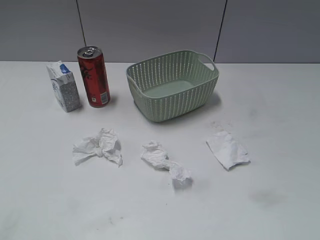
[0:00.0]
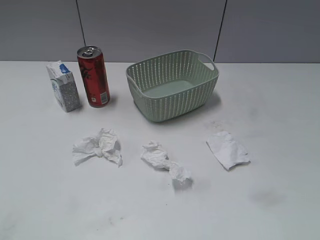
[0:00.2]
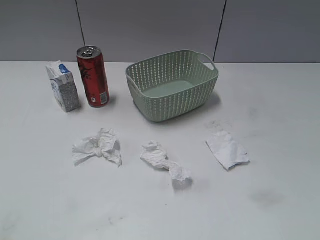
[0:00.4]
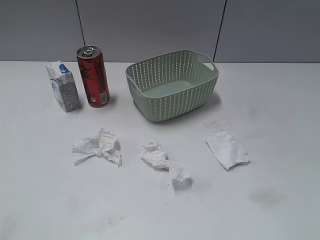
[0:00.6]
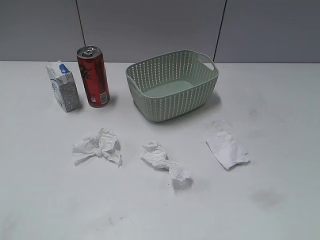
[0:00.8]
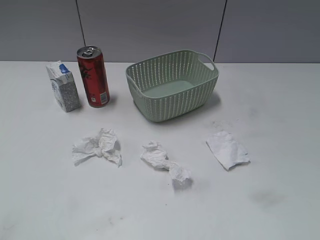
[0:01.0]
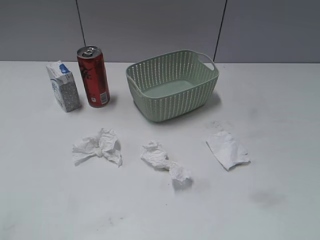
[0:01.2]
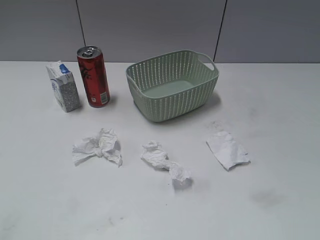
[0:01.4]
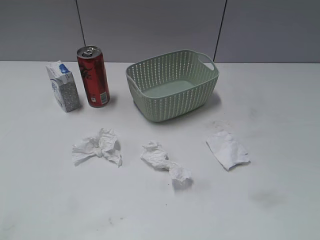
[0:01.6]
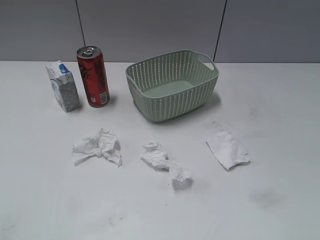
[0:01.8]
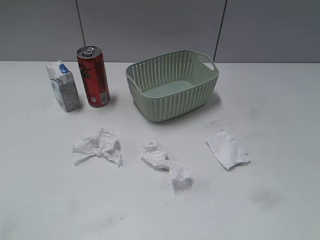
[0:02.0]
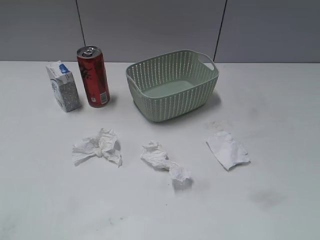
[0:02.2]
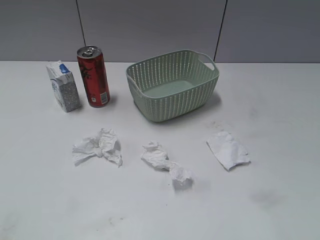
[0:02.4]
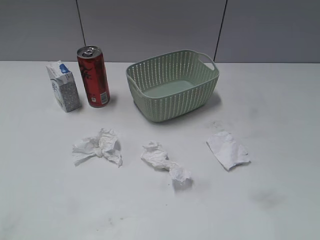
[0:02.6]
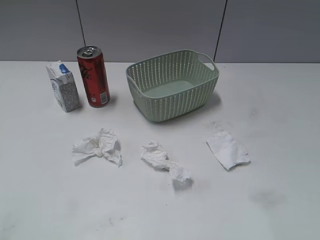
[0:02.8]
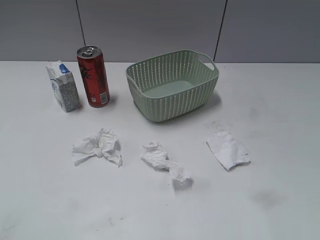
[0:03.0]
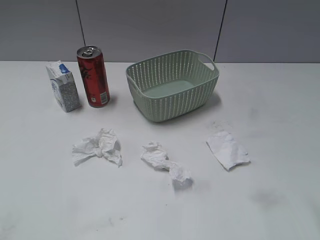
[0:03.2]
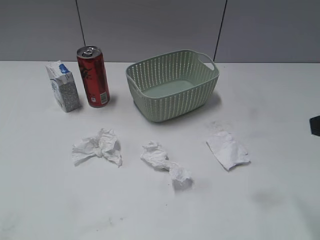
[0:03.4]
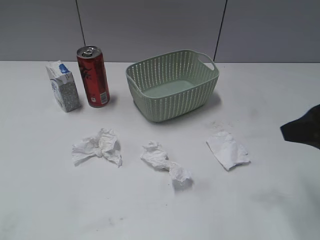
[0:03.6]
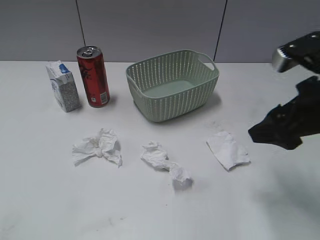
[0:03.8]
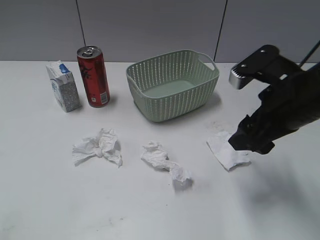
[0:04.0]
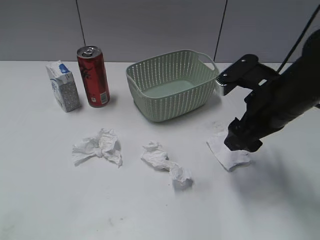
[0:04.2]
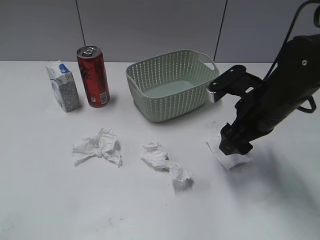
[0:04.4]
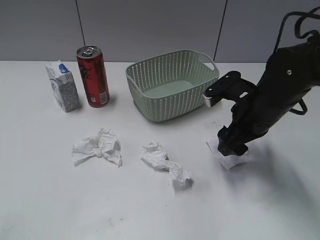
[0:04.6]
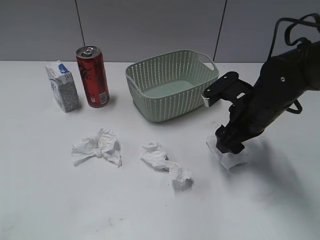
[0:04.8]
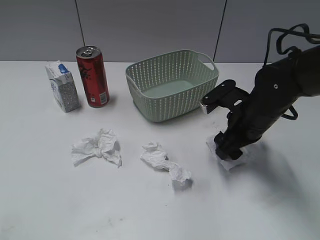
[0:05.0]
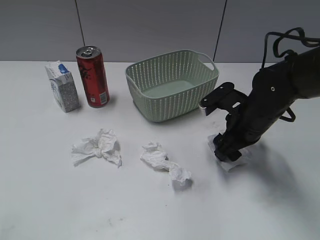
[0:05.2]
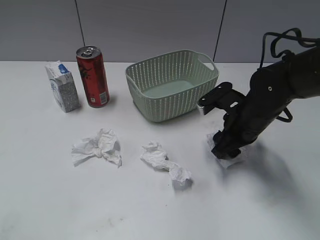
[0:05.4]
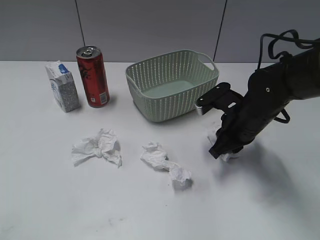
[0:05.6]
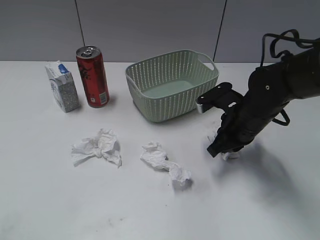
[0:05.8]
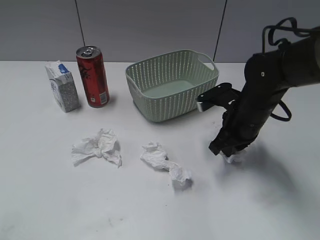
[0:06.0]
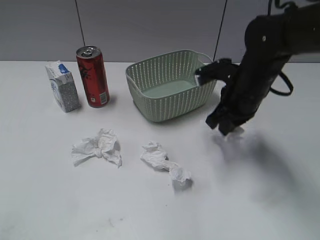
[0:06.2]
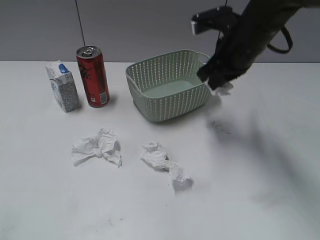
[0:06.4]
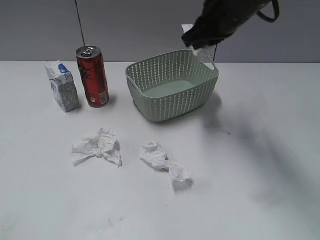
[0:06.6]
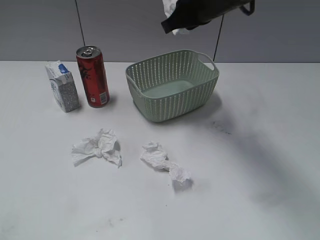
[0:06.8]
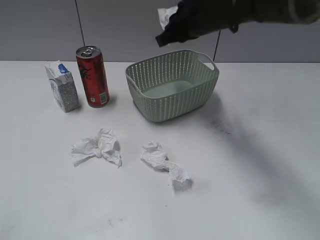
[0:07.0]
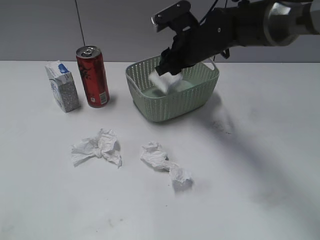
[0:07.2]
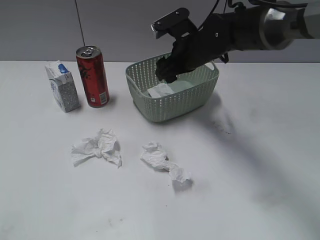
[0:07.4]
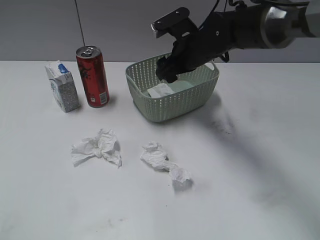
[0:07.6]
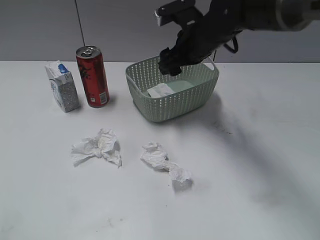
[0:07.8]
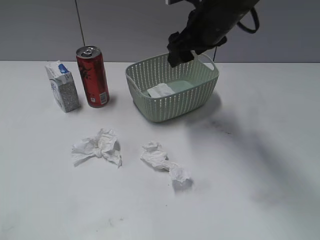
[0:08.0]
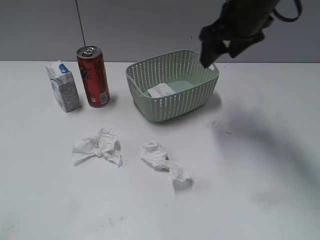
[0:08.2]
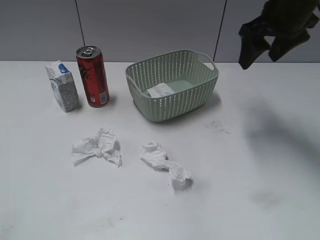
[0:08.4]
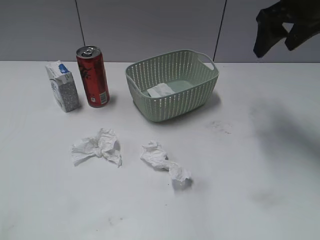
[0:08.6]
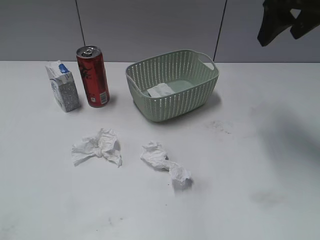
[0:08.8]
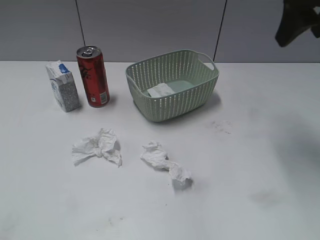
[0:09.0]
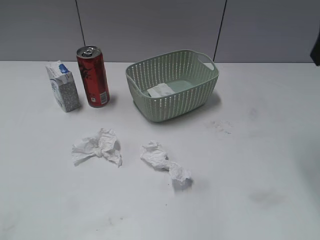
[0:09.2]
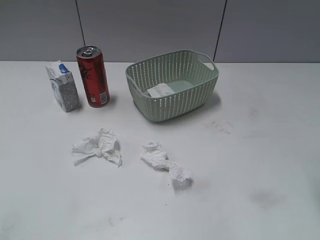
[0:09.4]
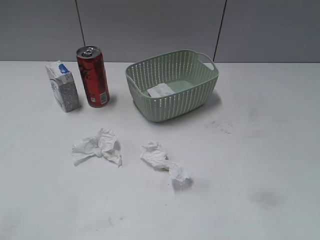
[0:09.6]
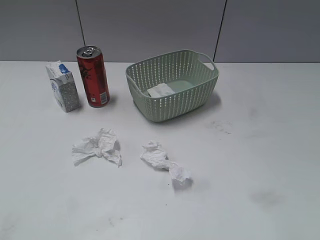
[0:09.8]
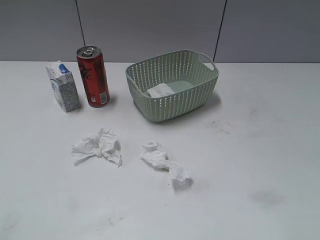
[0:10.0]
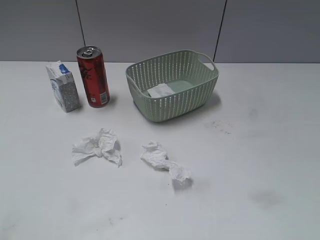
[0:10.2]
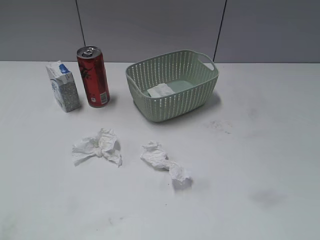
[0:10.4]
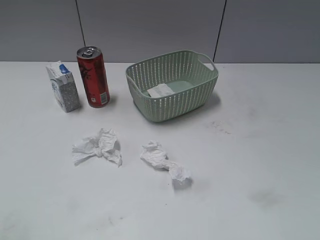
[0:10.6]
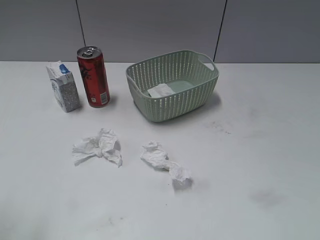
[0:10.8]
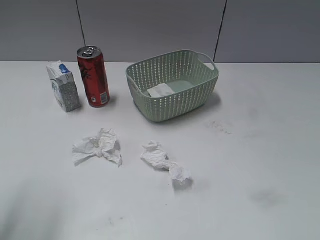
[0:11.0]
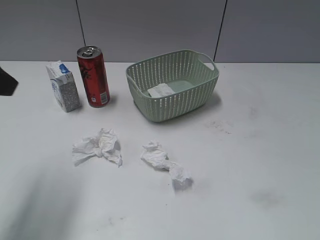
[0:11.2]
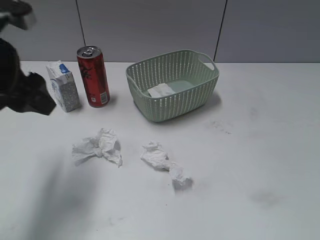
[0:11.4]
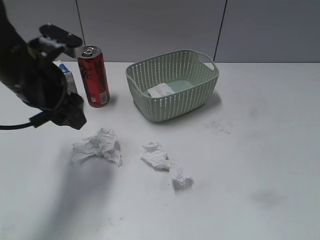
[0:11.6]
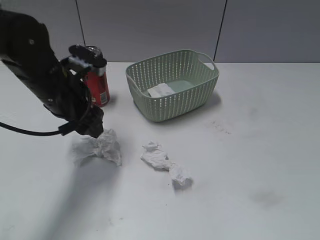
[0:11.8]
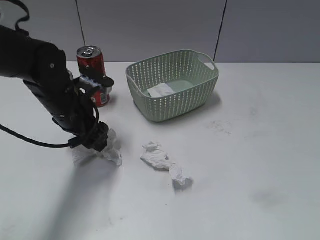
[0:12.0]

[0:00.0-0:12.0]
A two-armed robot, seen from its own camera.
Step, 0:03.4 to 0:06.0: Grasp the waste paper with right gripper.
Step, 0:06.2 to 0:07.2: Place the waste paper in the basket with right gripper.
0:03.0 to 0:04.4: The right gripper goes some 25 cm forward, downward and to the left.
0:04.4 to 0:06.0: The right gripper moves downward, about 5 cm, and closes.
0:06.0 to 0:07.6: The right gripper travels forward and to the left by roughly 15 cm, travels upward and back again, about 15 cm each way, and opens.
0:07.6 to 0:09.0: The right gripper goes approximately 25 cm upward, to the right and backward.
0:09.0 to 0:10.4: The right gripper heads backward, covering about 30 cm.
0:10.4 to 0:12.0: The left gripper shifts some 40 cm forward, downward and to the right.

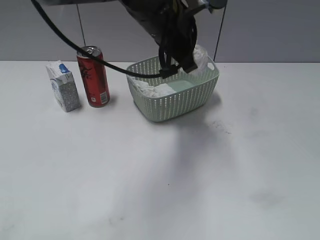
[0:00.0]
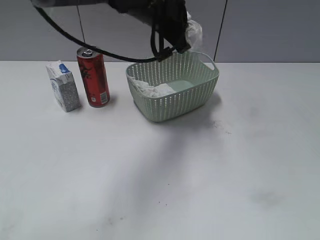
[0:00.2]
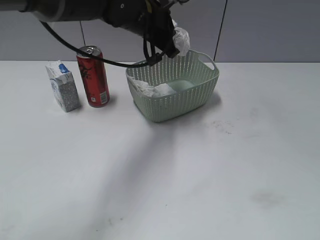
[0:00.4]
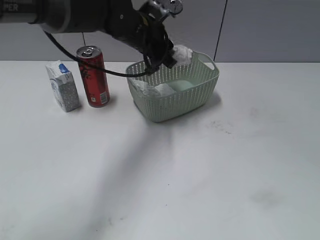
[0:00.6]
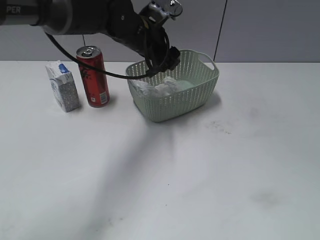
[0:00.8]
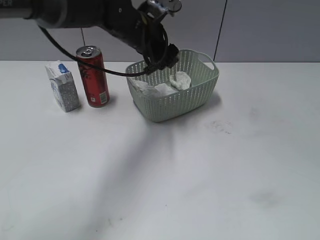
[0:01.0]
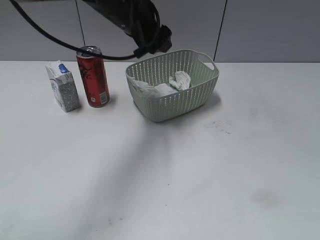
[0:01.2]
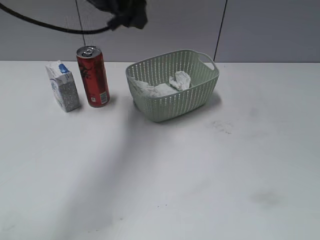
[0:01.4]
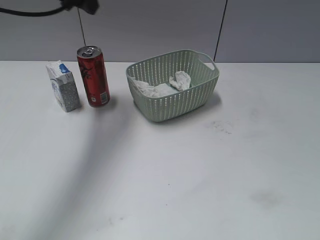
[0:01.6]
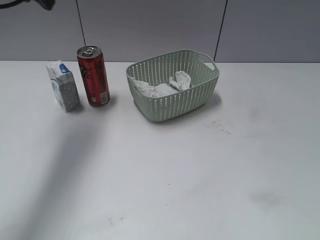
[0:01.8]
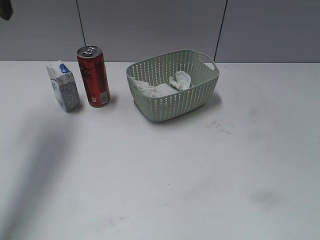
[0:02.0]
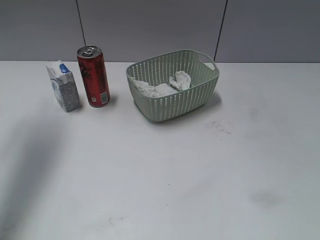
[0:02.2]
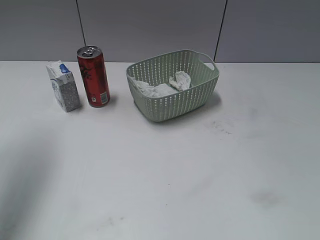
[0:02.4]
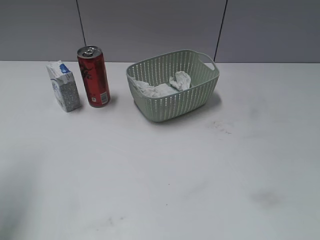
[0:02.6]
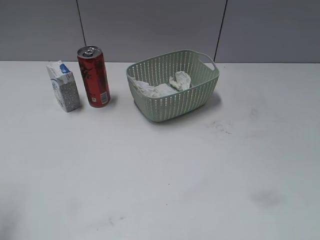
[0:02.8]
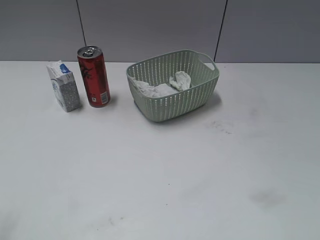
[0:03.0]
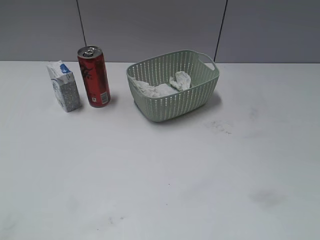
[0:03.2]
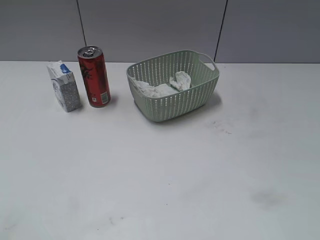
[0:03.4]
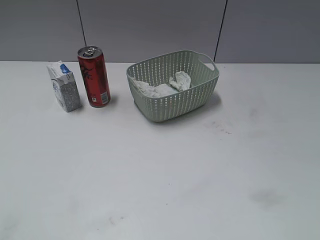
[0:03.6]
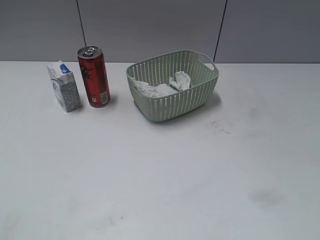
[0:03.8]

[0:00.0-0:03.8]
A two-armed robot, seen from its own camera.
Step, 0:00.0 to 0:01.0: Place the waste paper in the basket with left gripper.
0:00.0 to 0:01.2: The left gripper shifts approximately 10 cm forward and to the left, and opens.
0:01.2 to 0:02.6: The left gripper heads to the left and backward, covering about 30 cm.
0:02.6 to 0:03.8: The left gripper is displaced backward by some 25 cm.

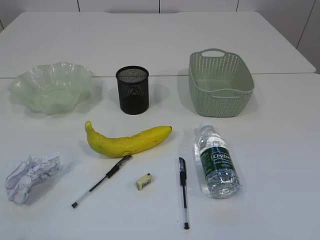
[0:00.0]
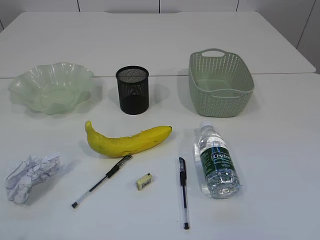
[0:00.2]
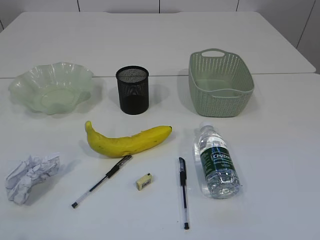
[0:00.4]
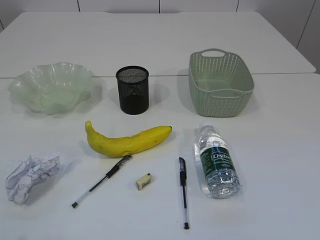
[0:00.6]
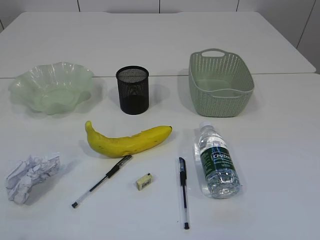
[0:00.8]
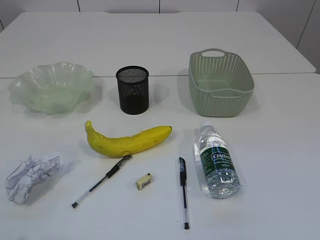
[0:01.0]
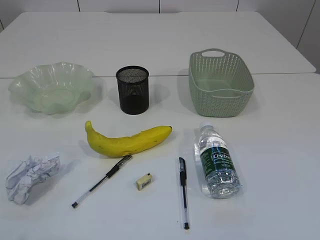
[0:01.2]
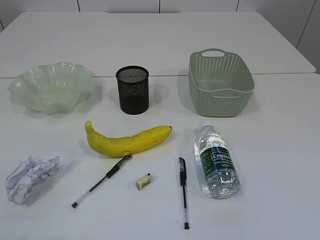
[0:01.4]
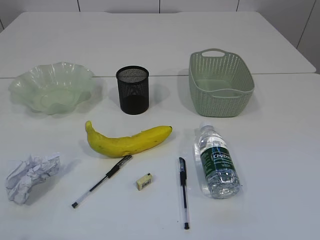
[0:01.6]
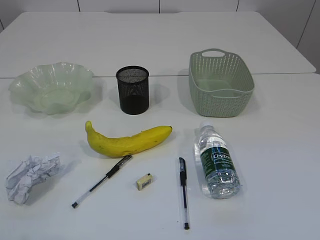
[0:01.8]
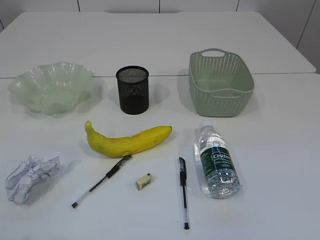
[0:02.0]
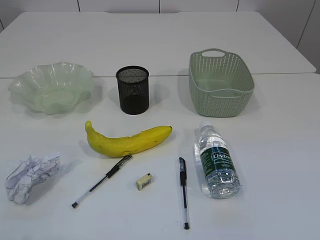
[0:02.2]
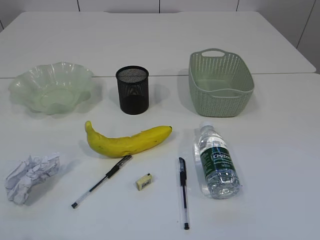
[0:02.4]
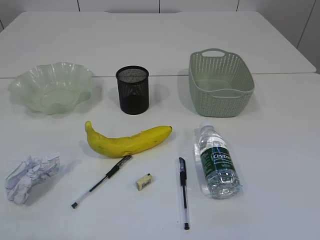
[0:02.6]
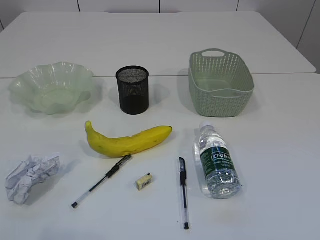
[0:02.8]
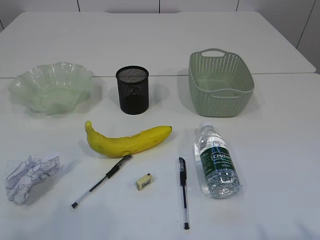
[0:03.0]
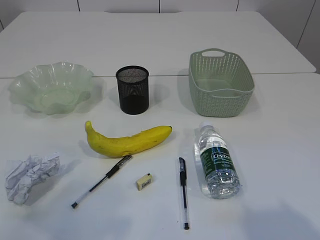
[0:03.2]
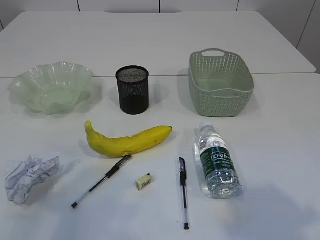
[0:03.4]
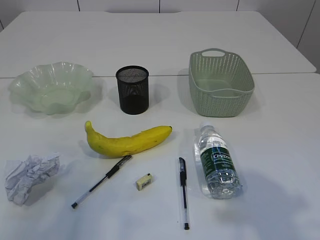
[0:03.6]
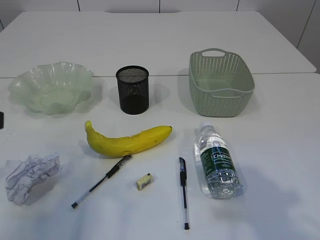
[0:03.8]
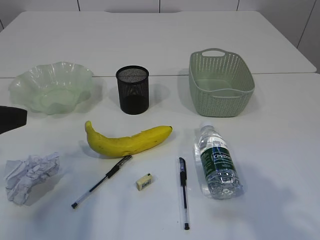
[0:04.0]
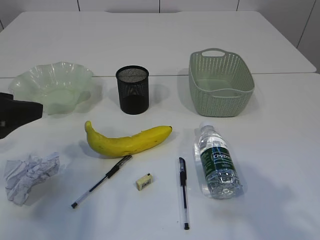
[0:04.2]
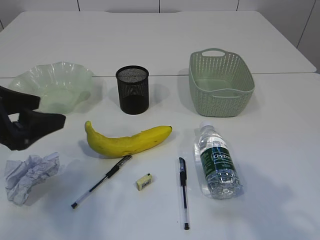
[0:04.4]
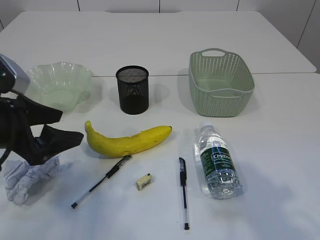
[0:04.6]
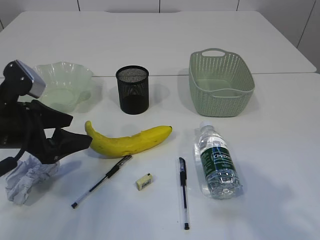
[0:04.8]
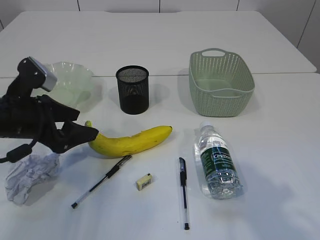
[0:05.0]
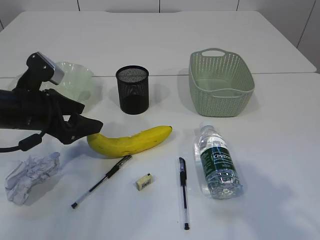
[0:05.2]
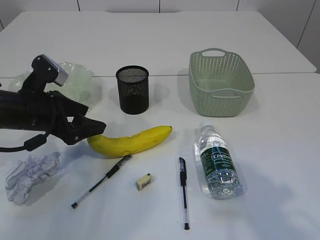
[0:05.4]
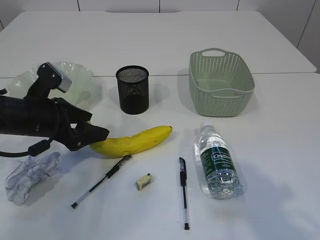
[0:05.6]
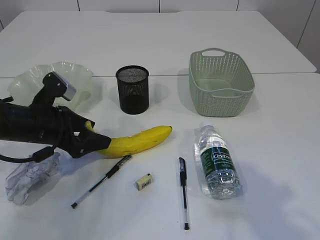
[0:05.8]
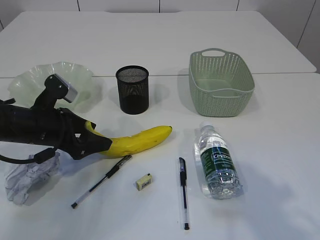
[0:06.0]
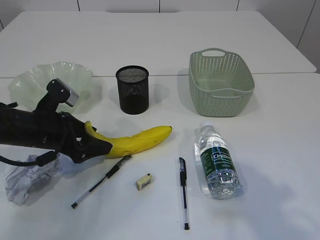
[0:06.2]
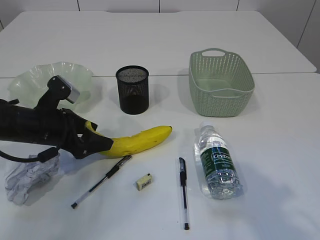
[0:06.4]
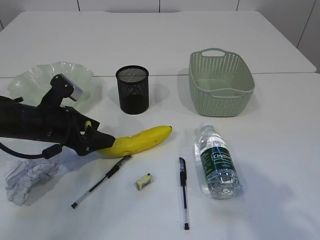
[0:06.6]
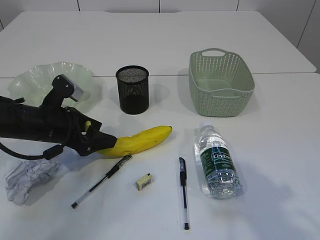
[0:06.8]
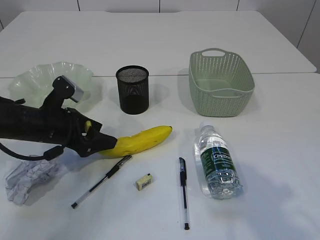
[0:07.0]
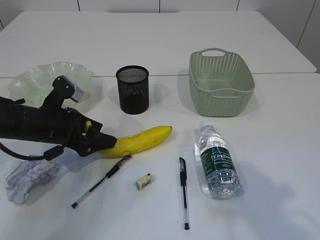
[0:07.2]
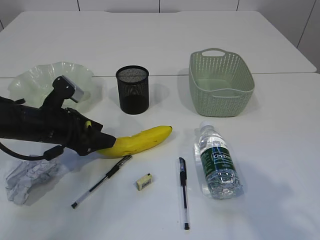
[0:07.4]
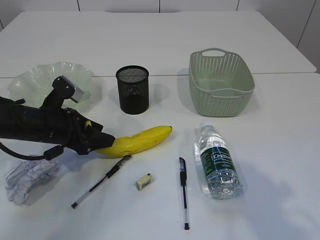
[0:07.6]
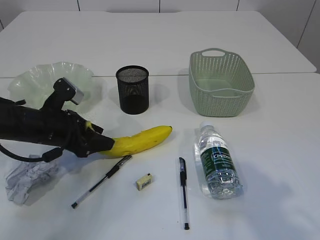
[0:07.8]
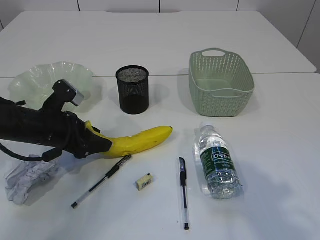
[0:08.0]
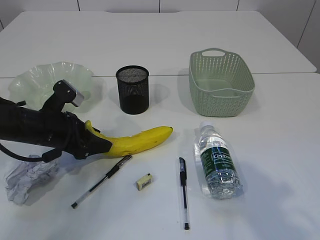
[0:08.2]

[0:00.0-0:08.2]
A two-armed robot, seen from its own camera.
0:01.6 to 0:03.2: The grippers both shift forward by some 5 cm.
0:03.2 to 0:05.0: The left gripper heads forward and downward, covering roughly 25 cm.
0:05.0 to 0:06.6: The left gripper shifts some 5 cm downward.
0:06.6 to 0:08.2: The two grippers keep their place.
